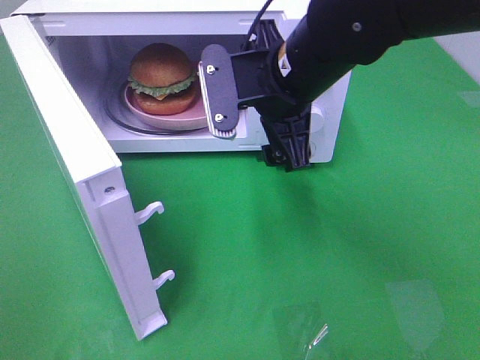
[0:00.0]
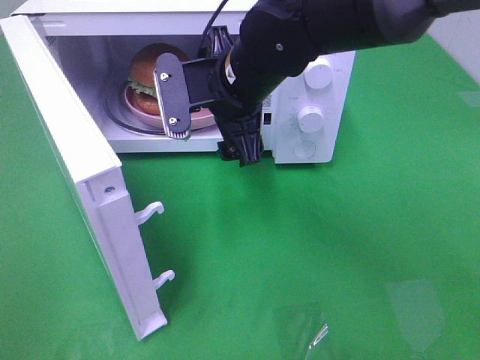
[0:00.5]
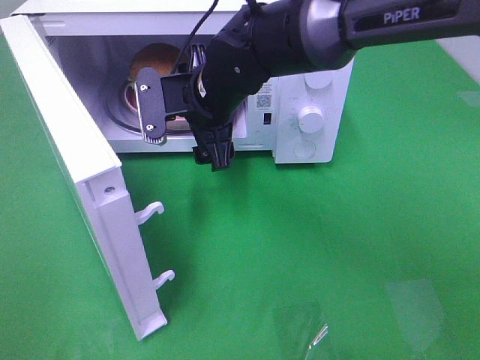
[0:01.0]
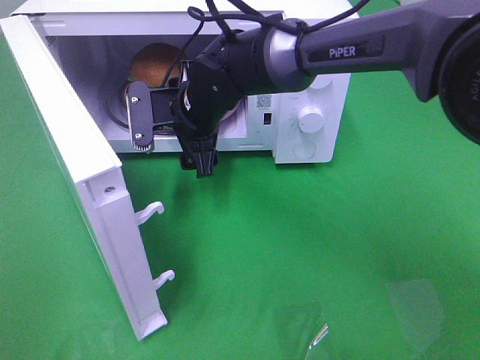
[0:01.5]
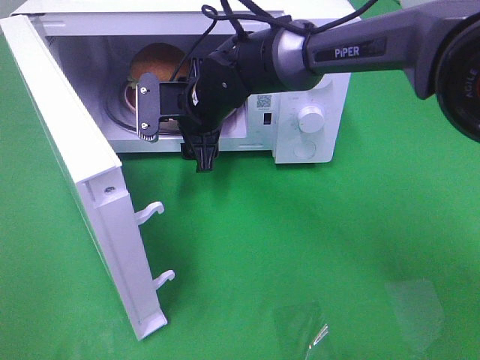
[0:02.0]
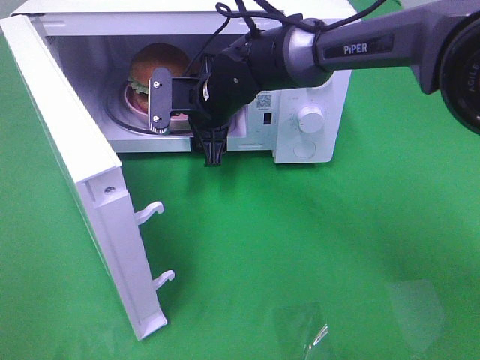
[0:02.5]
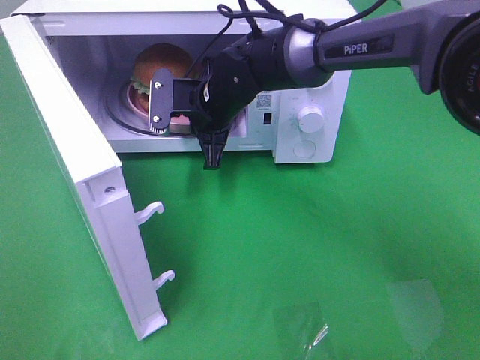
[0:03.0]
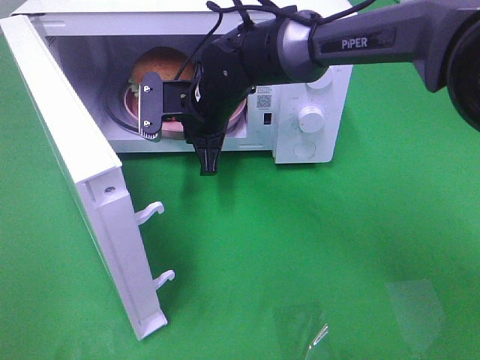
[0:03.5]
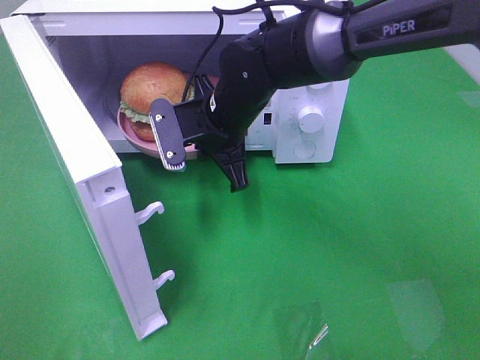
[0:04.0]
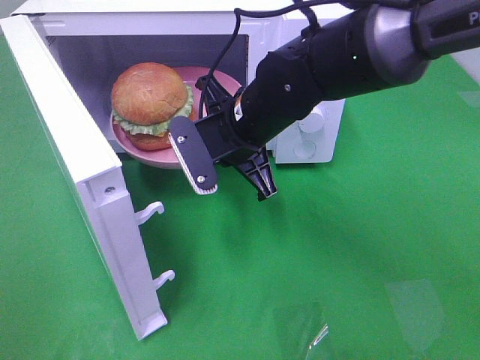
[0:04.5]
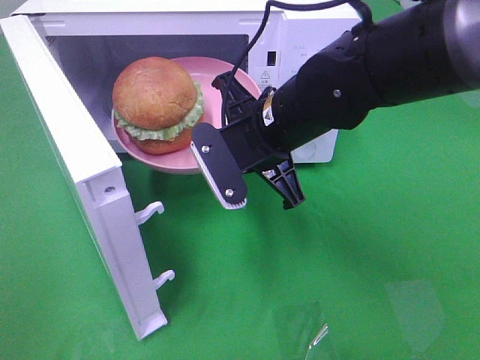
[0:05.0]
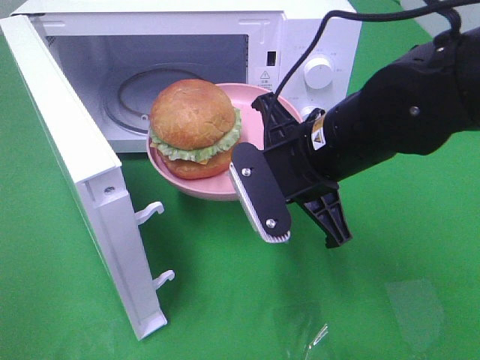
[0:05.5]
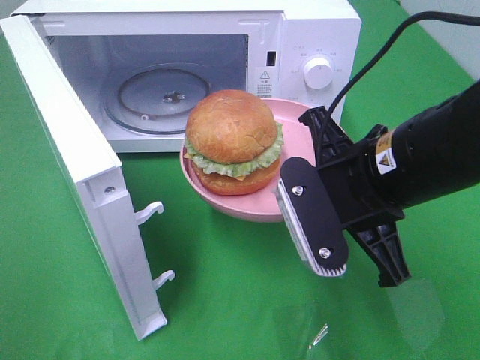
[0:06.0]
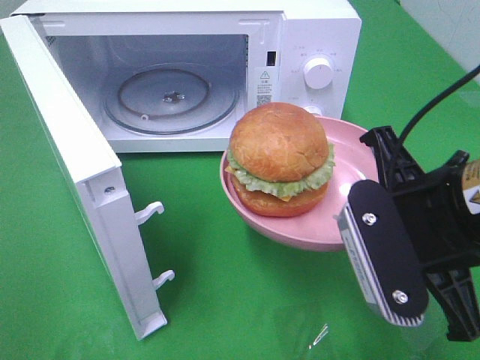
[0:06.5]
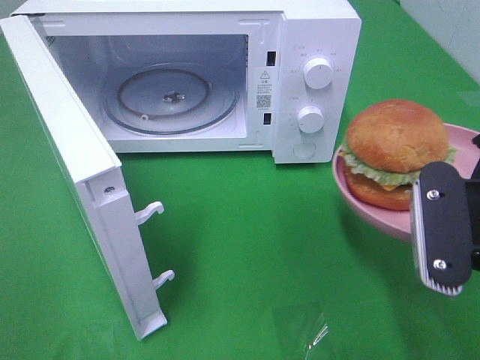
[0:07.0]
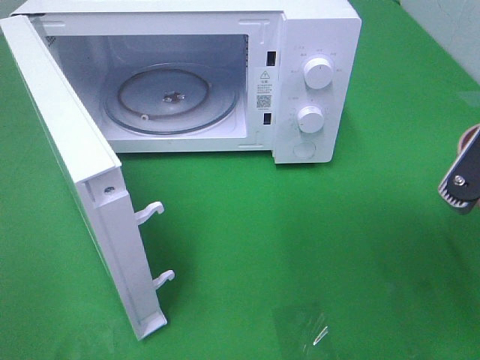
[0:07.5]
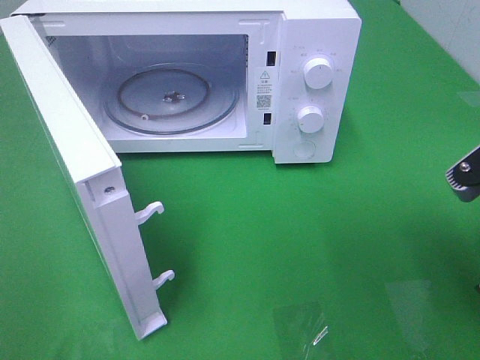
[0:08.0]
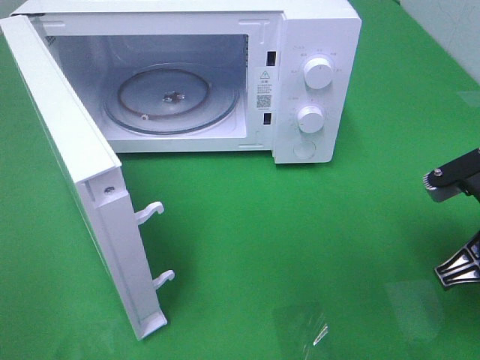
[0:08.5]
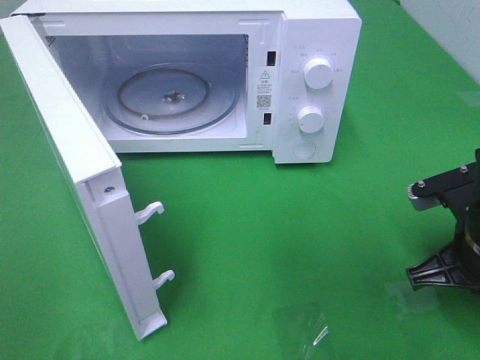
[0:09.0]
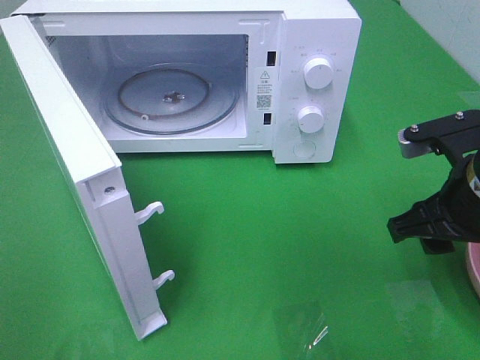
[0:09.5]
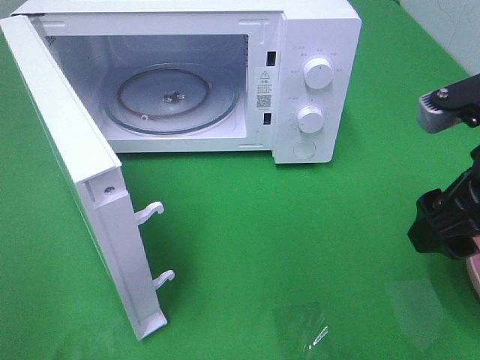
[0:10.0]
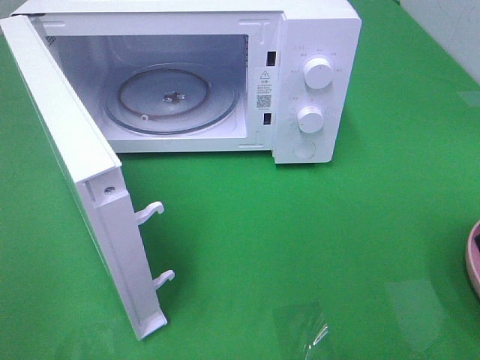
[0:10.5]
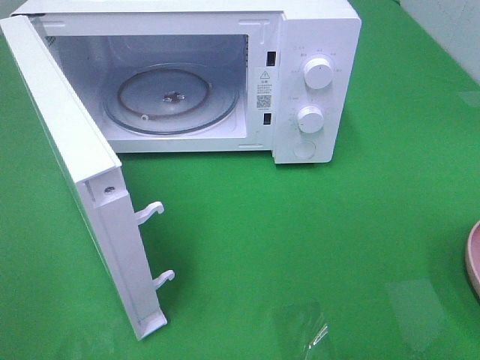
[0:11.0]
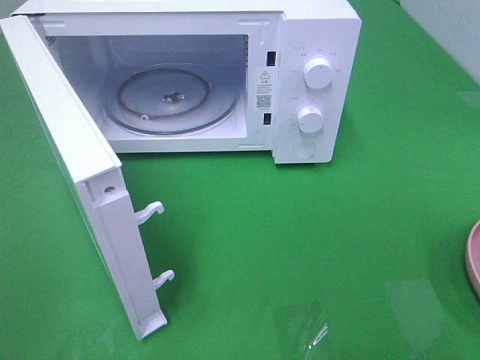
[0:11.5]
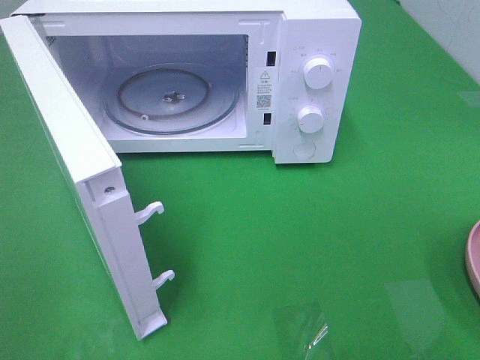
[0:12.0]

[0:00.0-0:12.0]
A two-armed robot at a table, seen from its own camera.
Task of the whole recording: Heat the burger.
Step, 0:00.0 to 0:03.0: Right hand: grab the plate with the hamburger.
Step, 0:03.5 to 0:09.0: Right hand: place the plate on the table.
0:00.0 to 0:02.0: The right gripper moves forward, downward and to the left, roughly 15 cm.
0:02.0 to 0:04.0: The right gripper closes up.
0:04.0 to 0:06.0: The right gripper is displaced backward and to the right by some 20 cm.
0:06.0 to 0:08.0: The right gripper goes roughly 15 cm to the right and backward.
0:08.0 to 0:10.0: The right gripper reaches roughly 10 cm downward, then returns, and opens up.
0:10.0 to 0:12.0: The right gripper moves backward and to the right, some 20 cm.

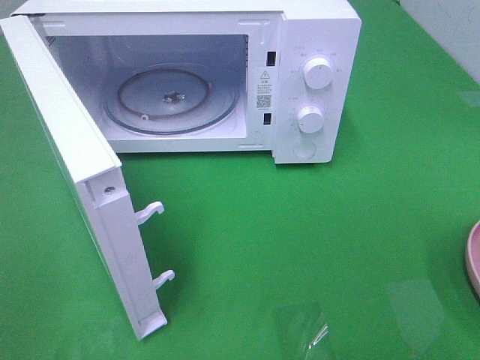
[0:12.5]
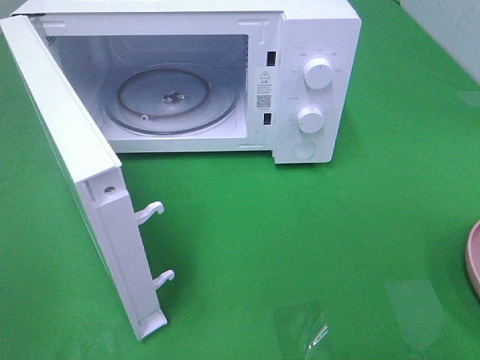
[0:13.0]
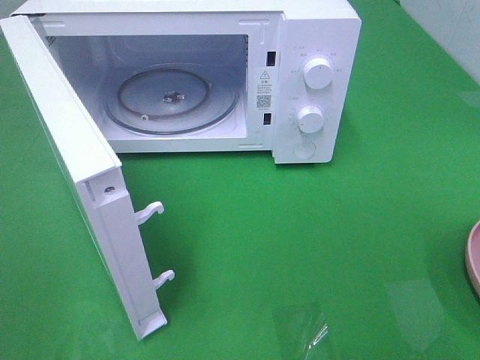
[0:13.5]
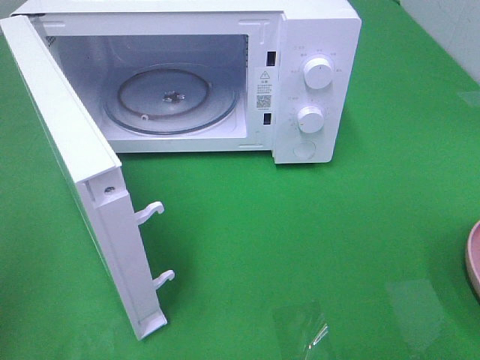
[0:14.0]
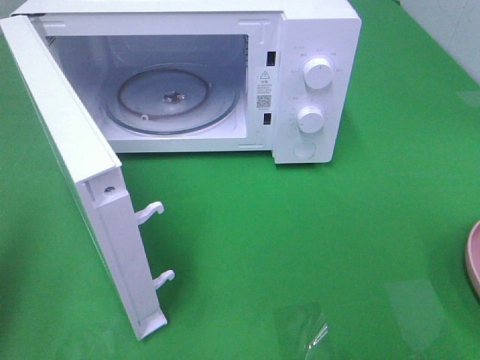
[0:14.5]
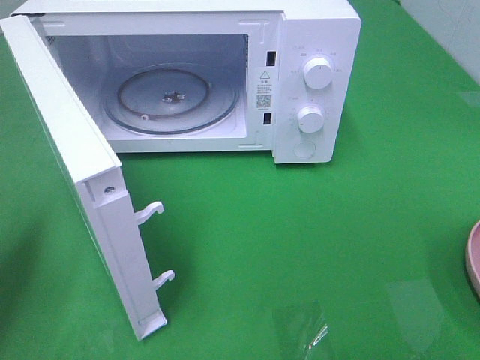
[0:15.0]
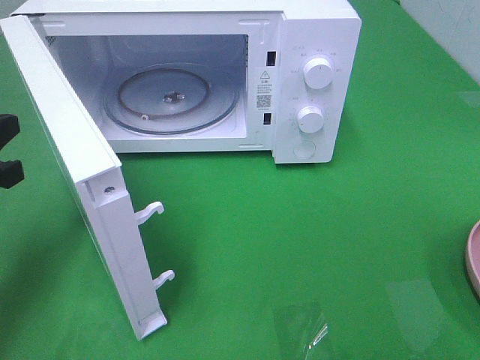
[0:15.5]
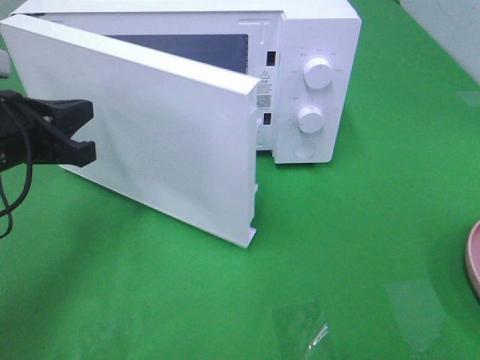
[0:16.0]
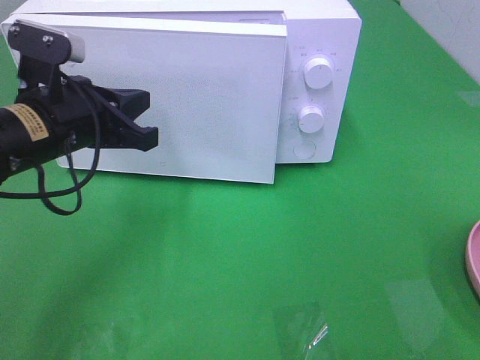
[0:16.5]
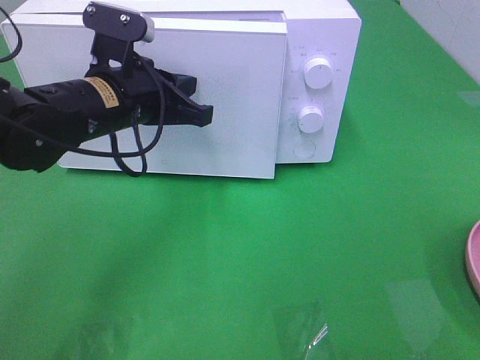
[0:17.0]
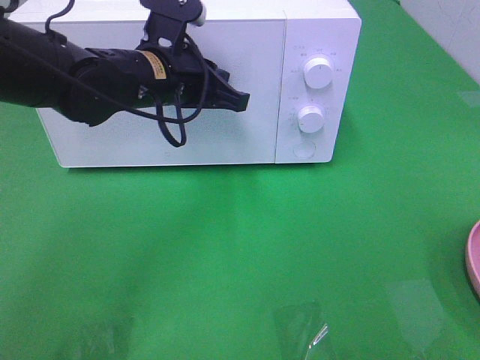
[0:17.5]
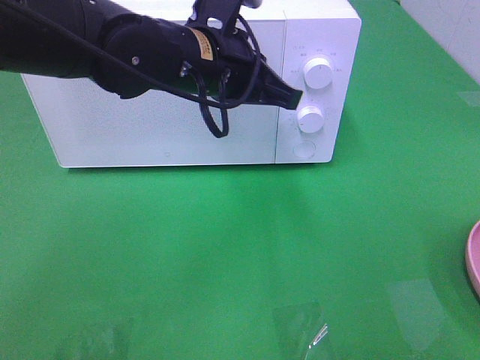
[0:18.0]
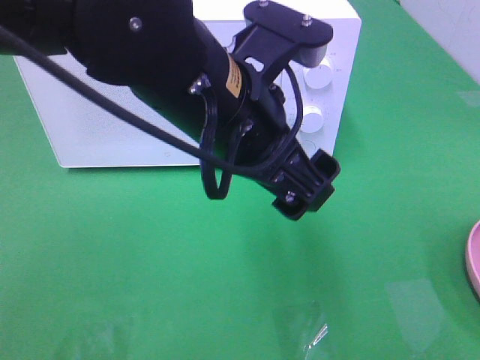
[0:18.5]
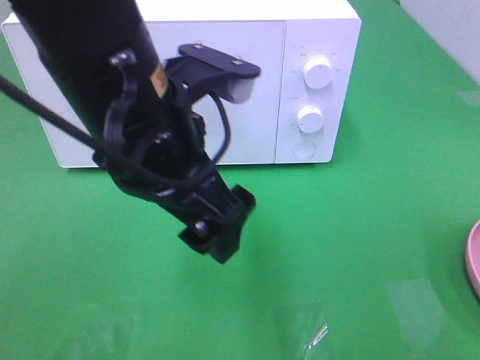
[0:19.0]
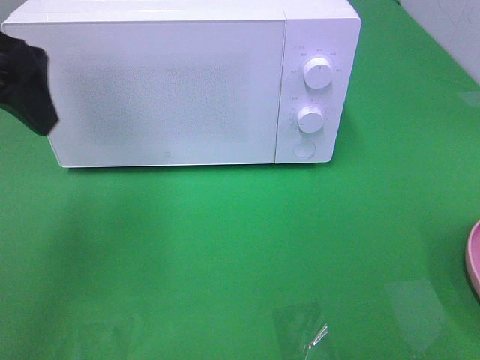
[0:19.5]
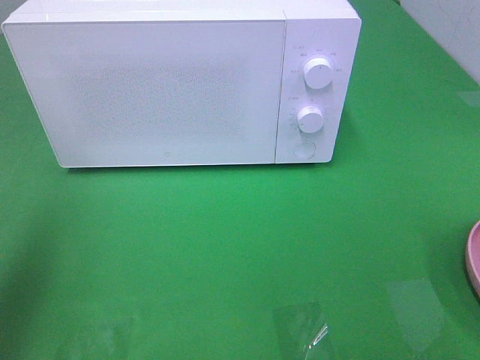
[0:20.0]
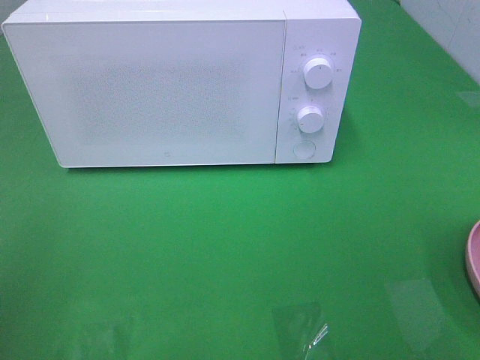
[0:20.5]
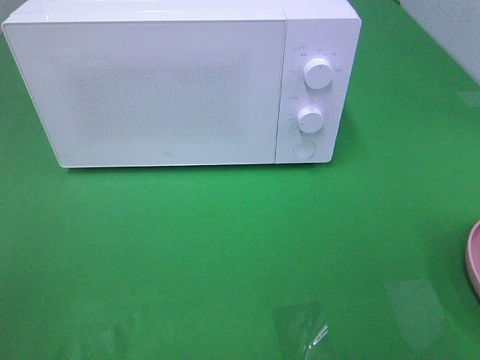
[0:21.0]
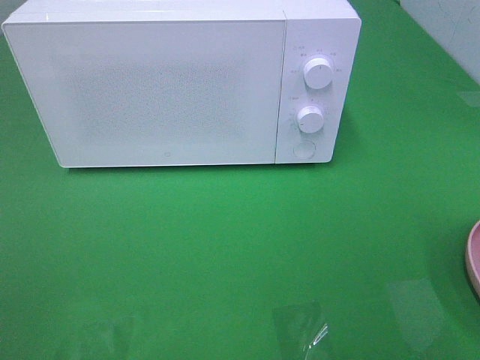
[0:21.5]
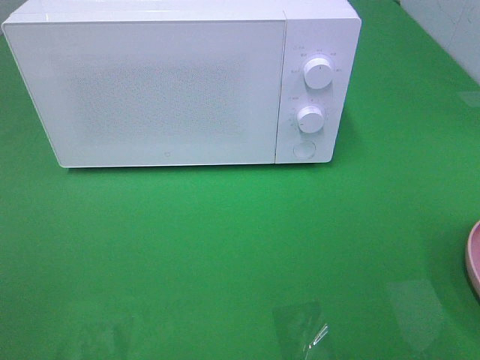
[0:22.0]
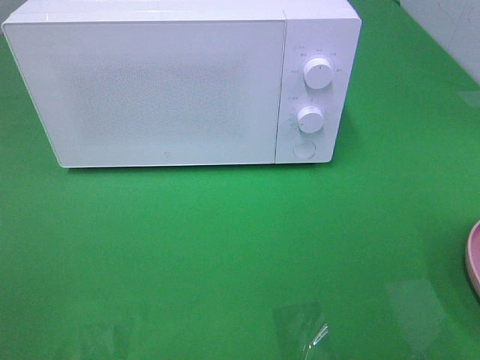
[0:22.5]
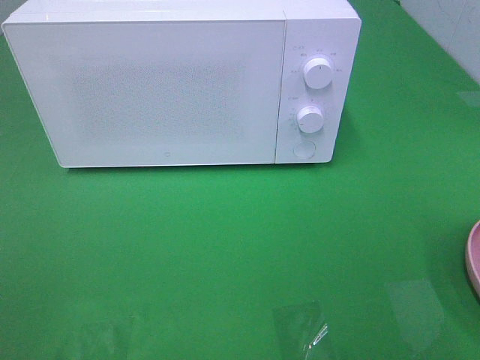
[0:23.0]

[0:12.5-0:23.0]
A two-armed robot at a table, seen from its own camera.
Task of the whole recording: Heat the burger.
Step, 0:12.5 to 0:17.5: Left hand: close the microwave door.
0:12.5 to 0:14.5: The left gripper heads forward, covering some 15 cm, and closes its fingers.
0:14.5 to 0:16.5: The left gripper travels to the right, forward and downward by about 25 cm.
0:16.5 to 0:19.0: The left gripper is displaced to the right, upward and backward by about 15 cm, and opens up.
0:19.0 to 0:21.0: The left gripper is displaced to the left and backward by roughly 30 cm.

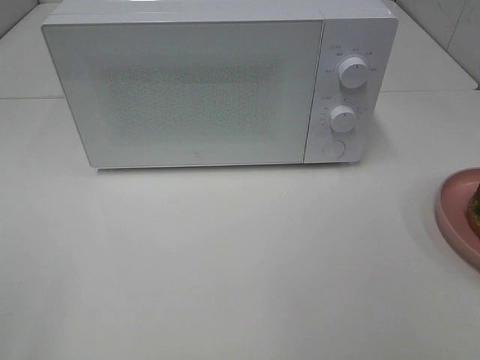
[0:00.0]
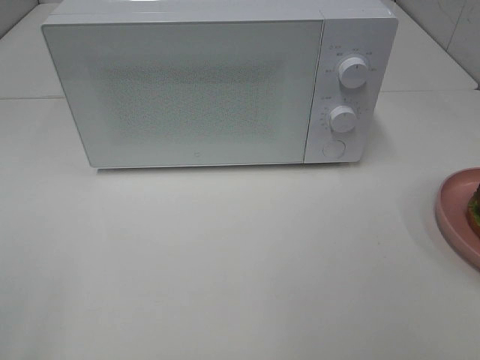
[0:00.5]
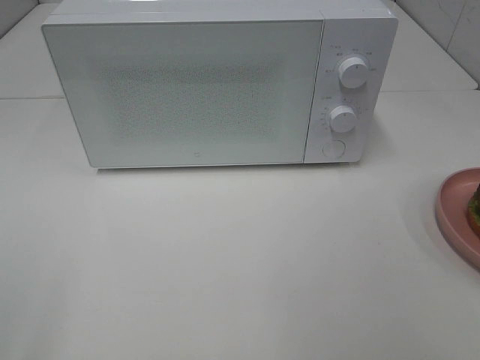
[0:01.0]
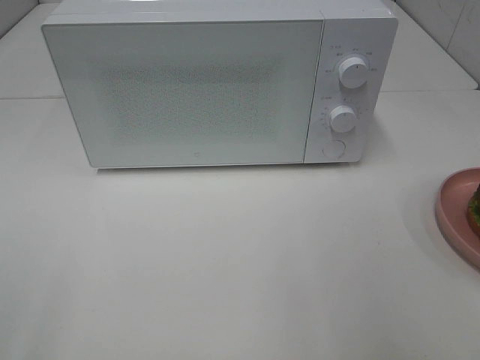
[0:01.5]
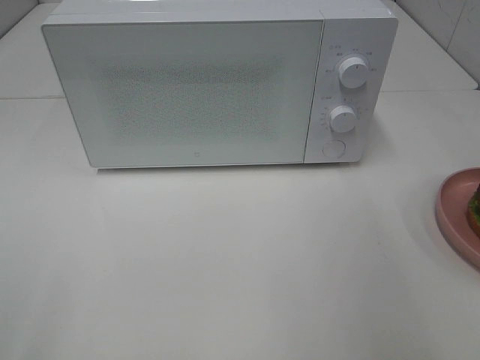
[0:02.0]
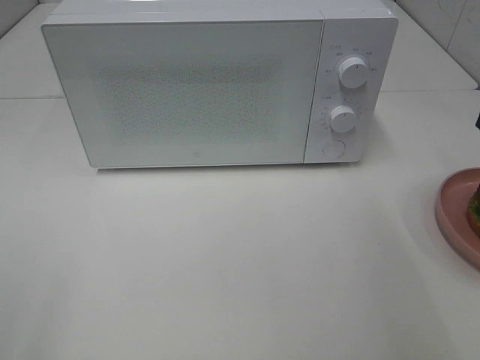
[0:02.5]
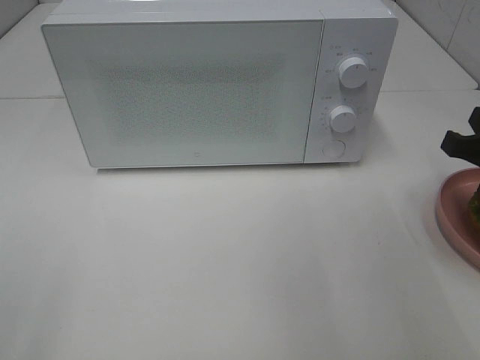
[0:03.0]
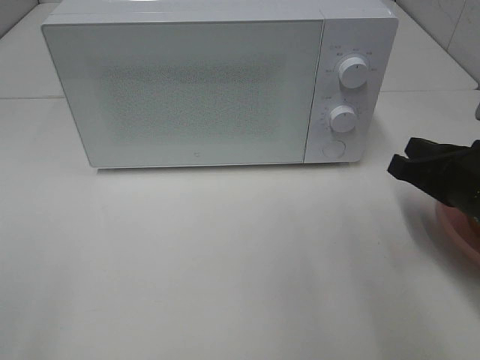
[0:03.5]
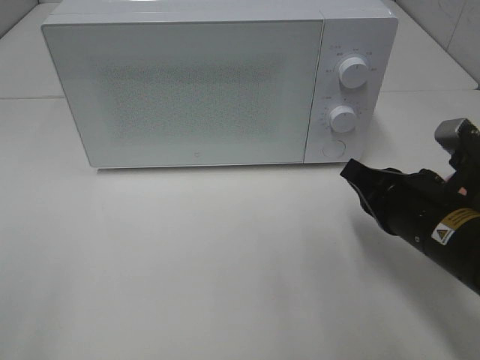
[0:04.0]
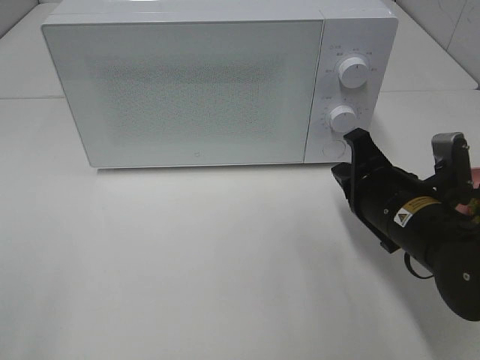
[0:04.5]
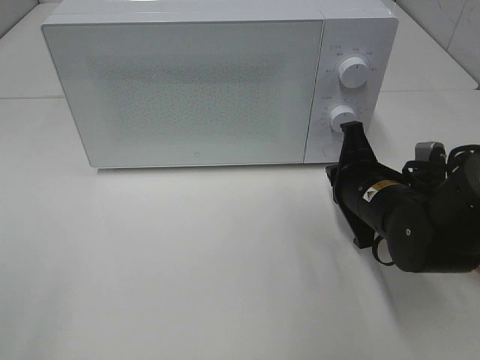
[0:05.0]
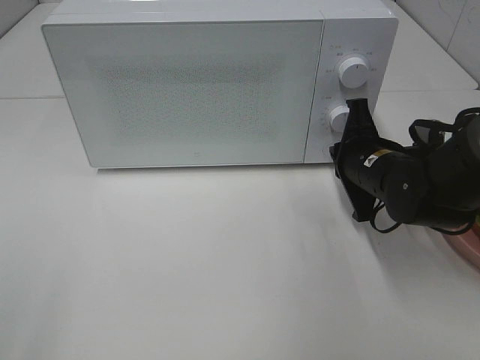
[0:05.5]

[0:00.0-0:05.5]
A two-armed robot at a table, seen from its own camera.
Task of the whole recording: Heat the burger.
0:02.0 to 0:03.5: The right gripper travels downward by approximately 15 cm.
0:03.5 to 0:05.5: The right gripper is displaced forward and to the left by about 10 cm.
